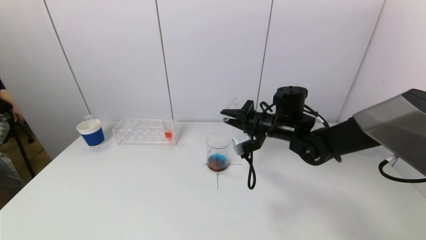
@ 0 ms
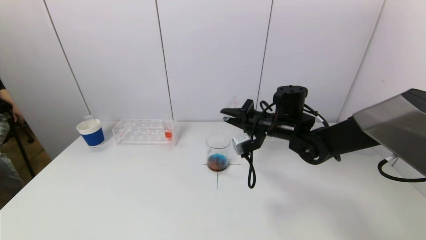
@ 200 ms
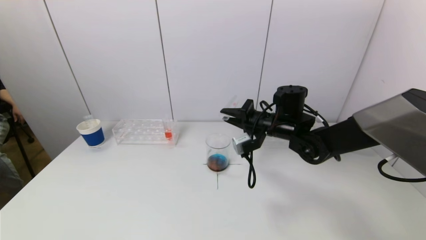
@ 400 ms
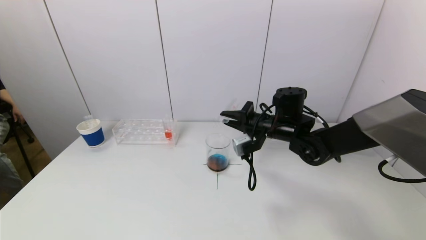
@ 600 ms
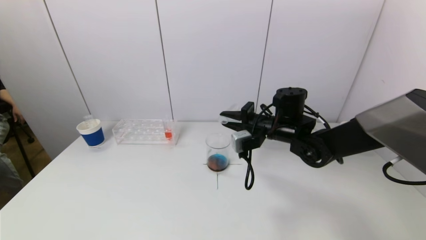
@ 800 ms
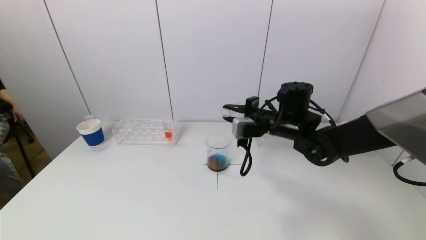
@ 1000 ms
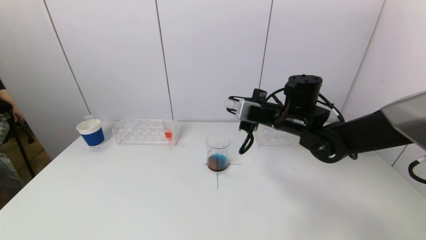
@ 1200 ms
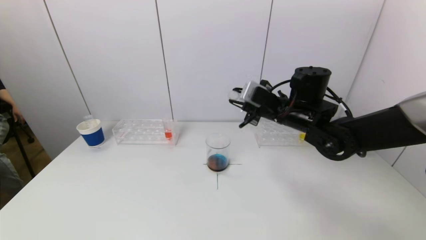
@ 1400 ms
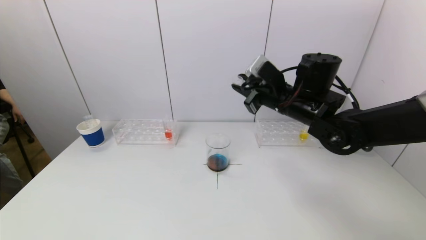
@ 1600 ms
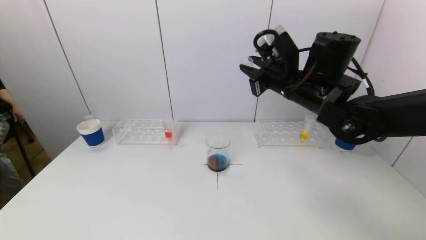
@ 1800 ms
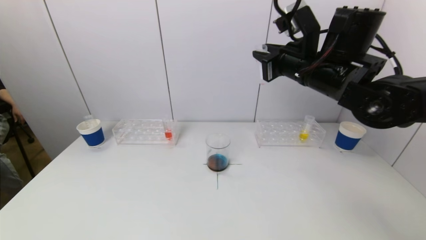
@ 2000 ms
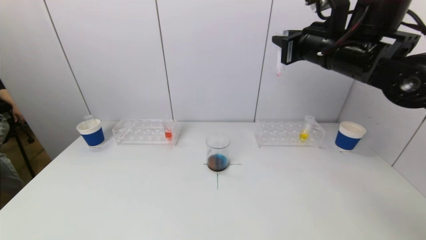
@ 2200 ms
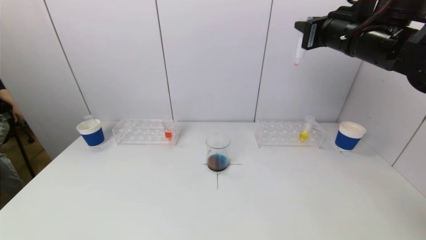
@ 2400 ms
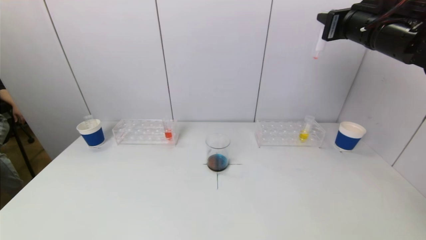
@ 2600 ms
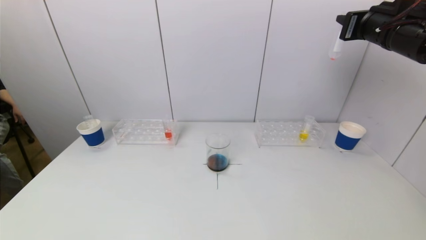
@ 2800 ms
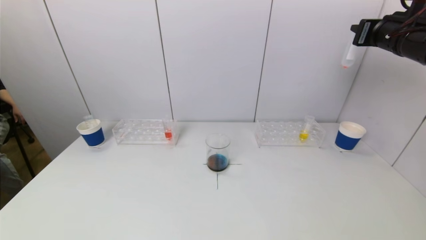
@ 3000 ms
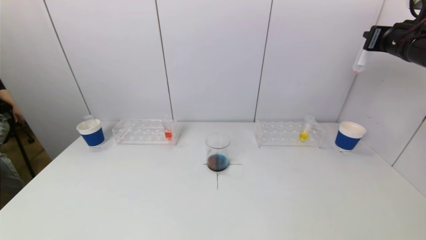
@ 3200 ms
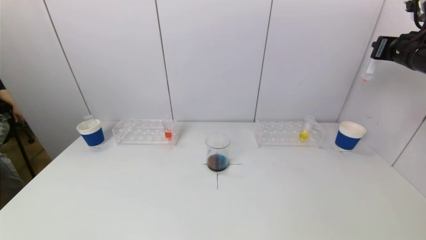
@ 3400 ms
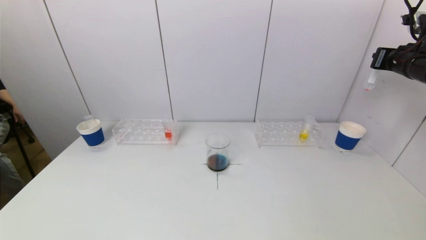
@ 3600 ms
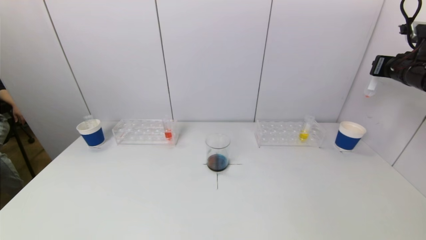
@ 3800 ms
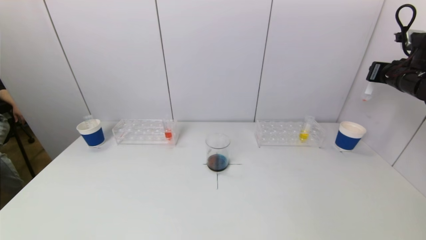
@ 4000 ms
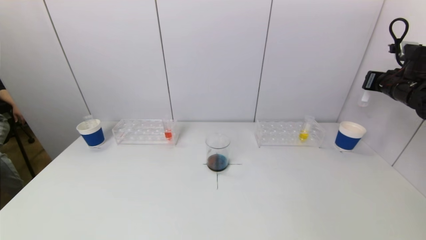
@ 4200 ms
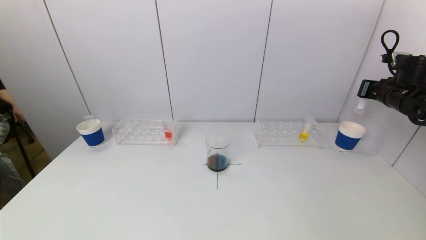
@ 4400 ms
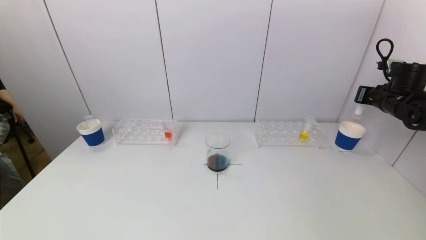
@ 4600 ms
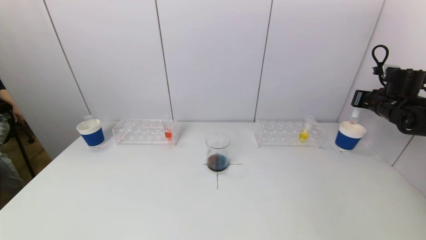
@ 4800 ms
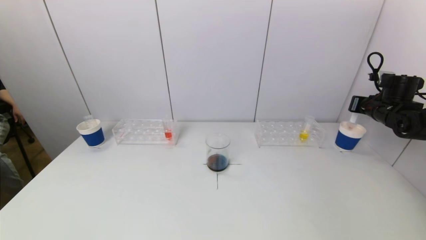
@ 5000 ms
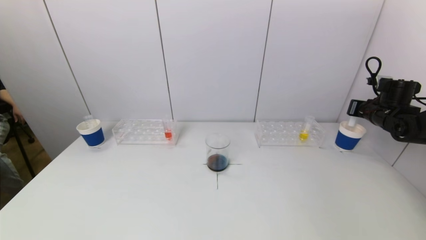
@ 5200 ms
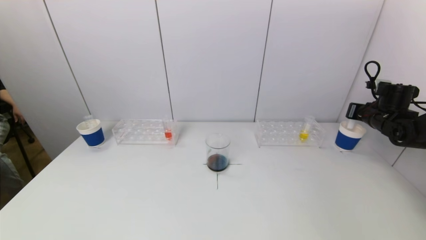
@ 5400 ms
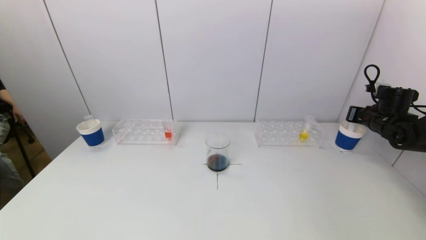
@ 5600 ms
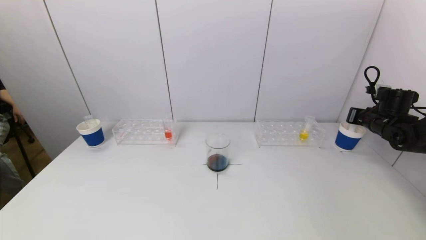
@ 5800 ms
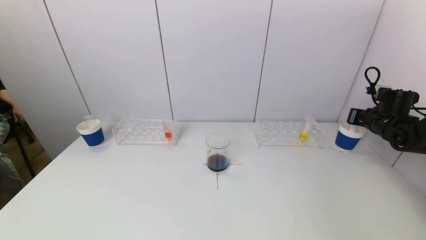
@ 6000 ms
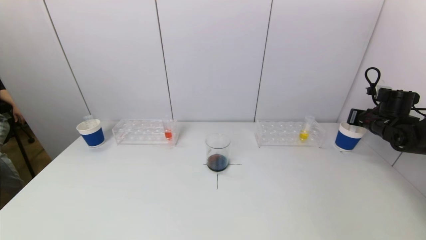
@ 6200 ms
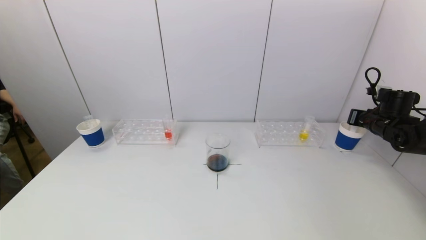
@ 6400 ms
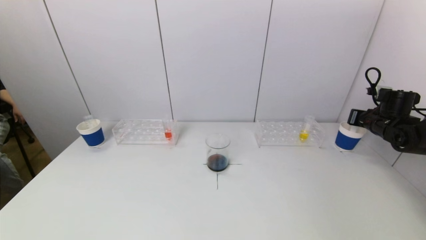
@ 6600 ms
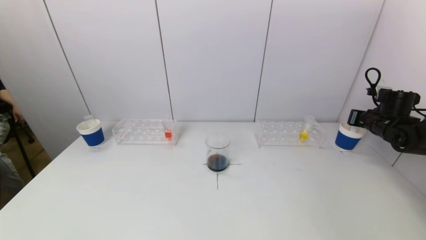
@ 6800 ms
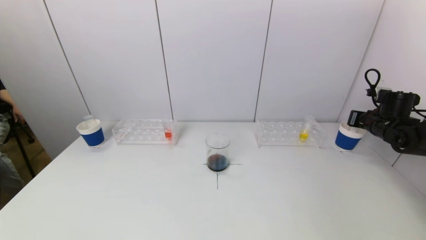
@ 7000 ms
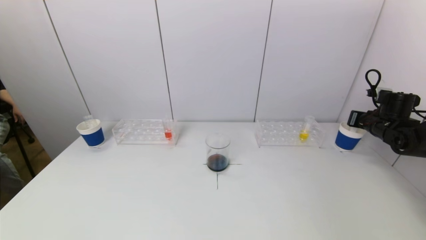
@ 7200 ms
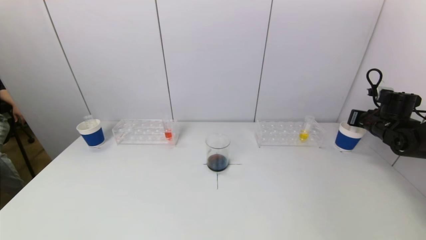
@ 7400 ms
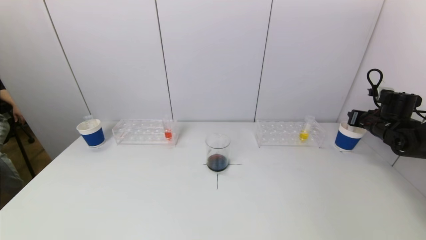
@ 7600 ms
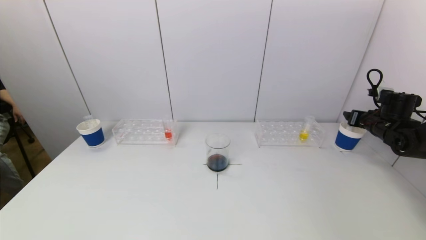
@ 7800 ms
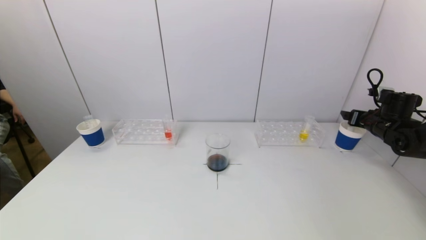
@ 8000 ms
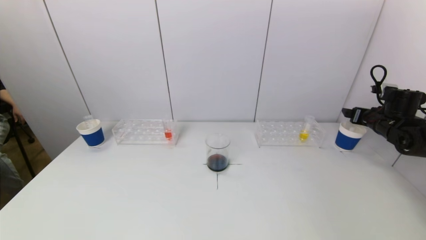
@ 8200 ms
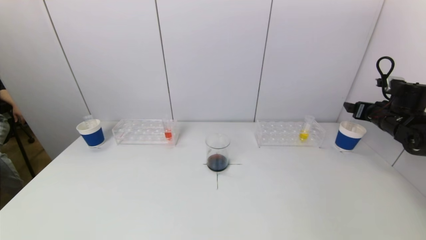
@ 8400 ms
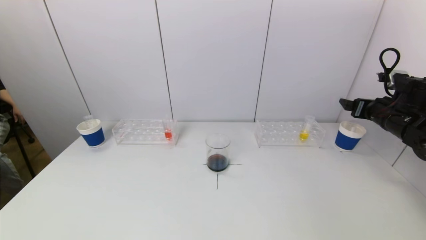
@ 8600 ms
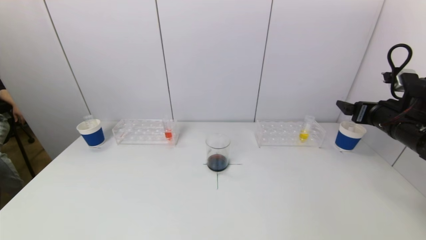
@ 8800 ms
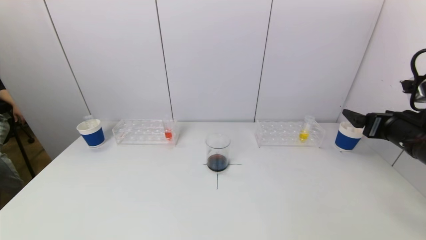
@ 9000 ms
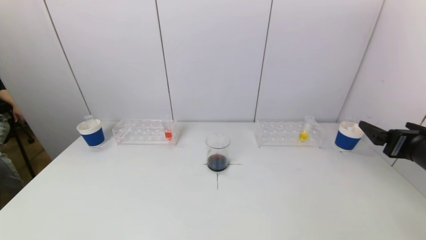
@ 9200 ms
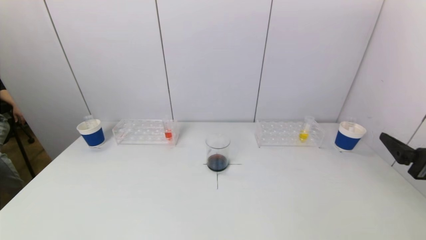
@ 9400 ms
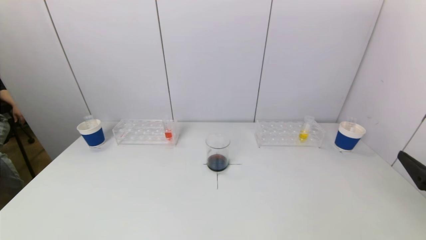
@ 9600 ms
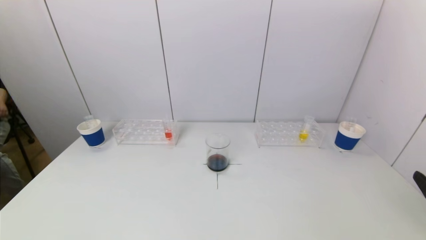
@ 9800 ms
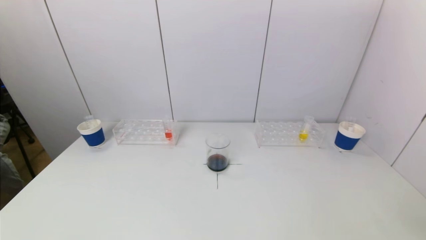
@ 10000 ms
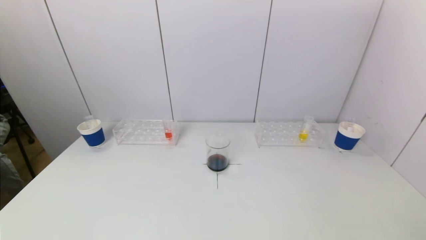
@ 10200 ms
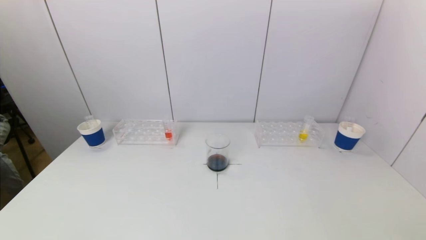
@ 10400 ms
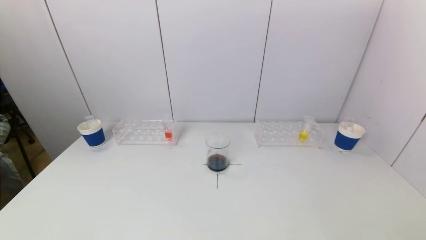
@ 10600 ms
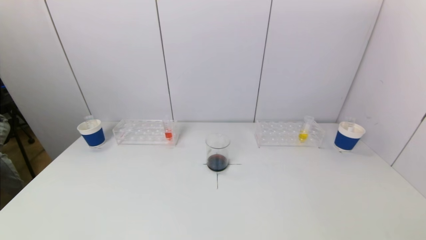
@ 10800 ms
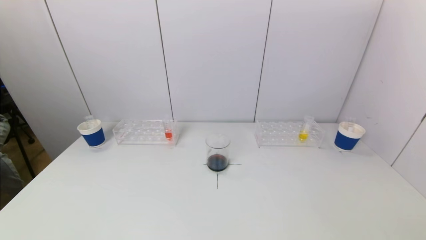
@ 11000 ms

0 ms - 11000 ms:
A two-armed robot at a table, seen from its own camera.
Task of the whole recording: pick up a test tube with pigment on left test tube rack and a test tube with pigment on right test tube rack by grippers and pour them into the beaker.
Step, 0 ms - 7600 ms: Place the test tube into the paper cup with the right gripper.
0 ms - 1600 ms: The right gripper heads upward, covering roughly 10 cm.
1600 ms - 3200 ms: The right gripper shifts approximately 25 cm to the right and upward.
3200 ms - 4800 ms: The right gripper travels downward and to the right by some 15 cm.
4800 ms - 6200 ms: The right gripper goes about 5 cm downward.
6200 ms - 7800 ms: The right gripper opens its fingers.
7800 ms - 9400 ms: The right gripper moves backward, about 25 cm.
9400 ms - 11000 ms: The right gripper shifts approximately 20 cm backward and downward.

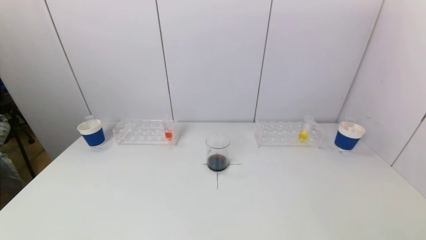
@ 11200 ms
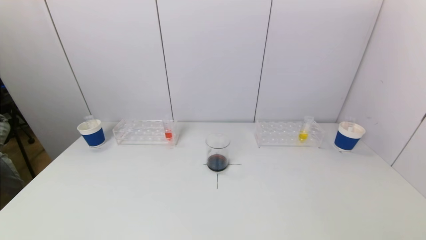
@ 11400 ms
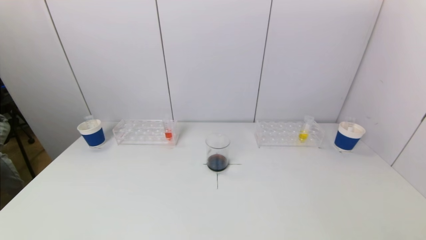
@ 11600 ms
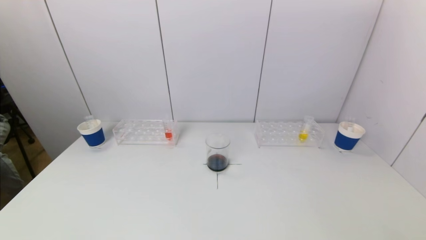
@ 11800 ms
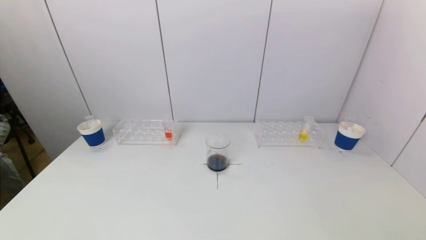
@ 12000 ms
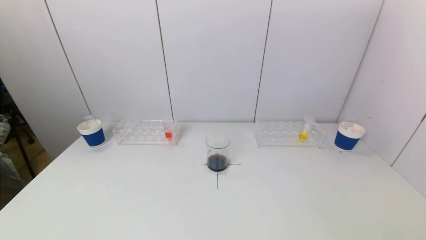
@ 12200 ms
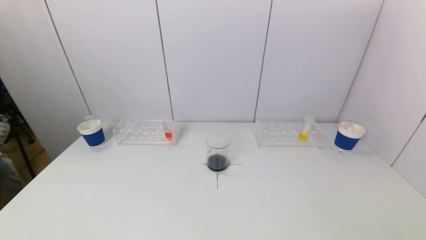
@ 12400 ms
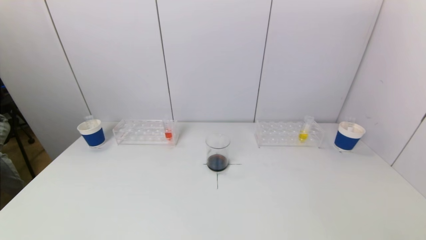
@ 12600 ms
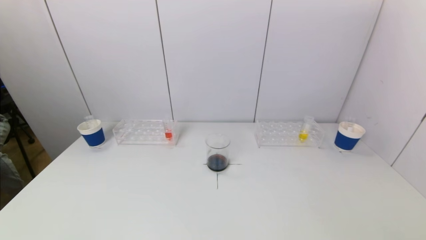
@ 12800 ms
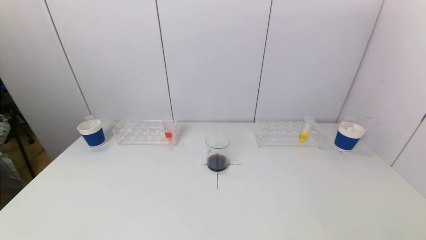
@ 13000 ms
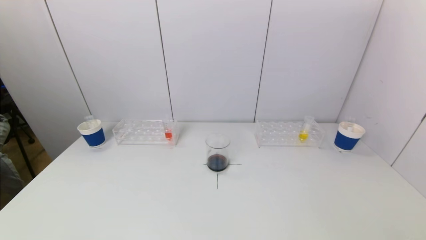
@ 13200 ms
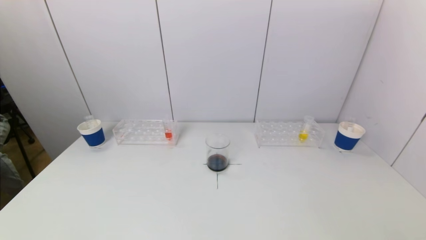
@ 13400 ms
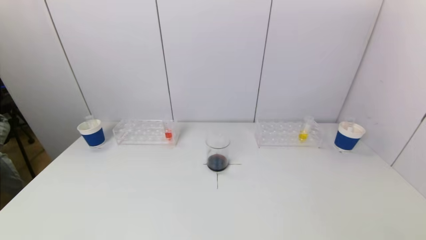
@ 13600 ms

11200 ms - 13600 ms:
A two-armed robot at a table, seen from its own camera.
Task of the whole recording: pick up a test tube with pigment on left test tube rack and a test tube with pigment on right test tube rack by grippers and pour them into the beaker.
11200 ms - 13600 ms: Both grippers stay put.
